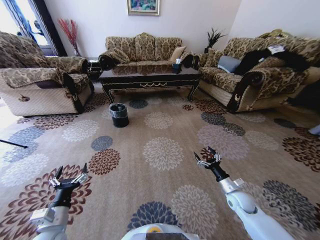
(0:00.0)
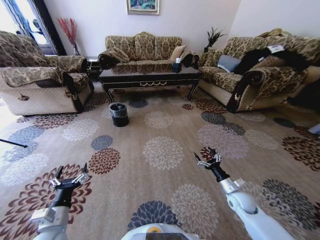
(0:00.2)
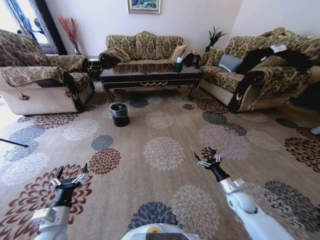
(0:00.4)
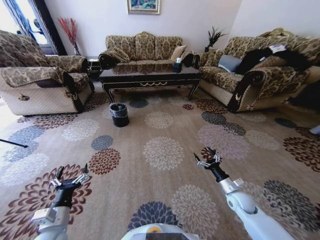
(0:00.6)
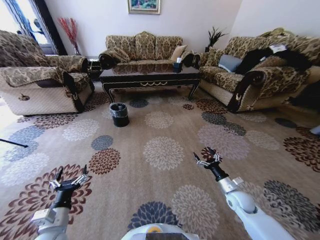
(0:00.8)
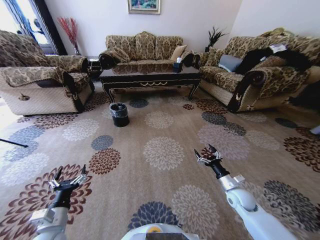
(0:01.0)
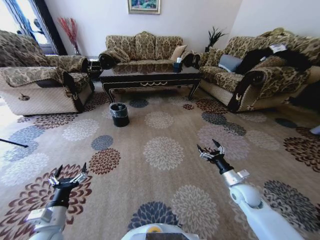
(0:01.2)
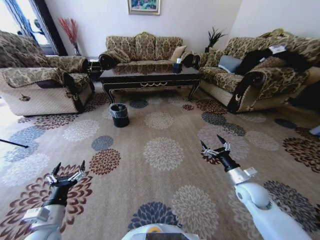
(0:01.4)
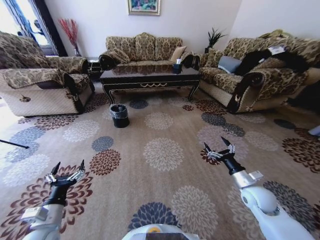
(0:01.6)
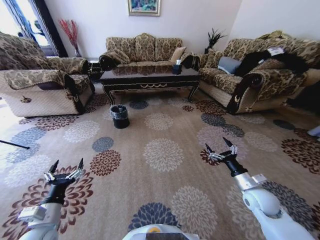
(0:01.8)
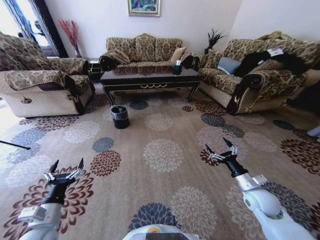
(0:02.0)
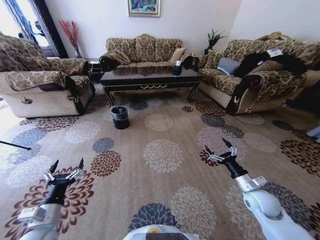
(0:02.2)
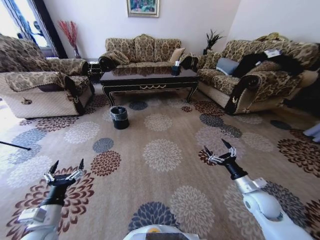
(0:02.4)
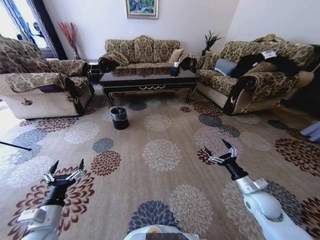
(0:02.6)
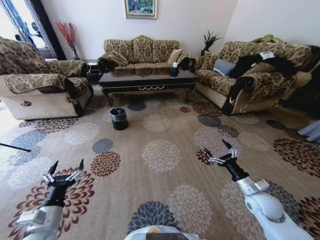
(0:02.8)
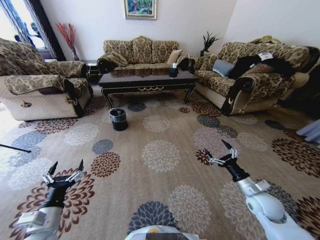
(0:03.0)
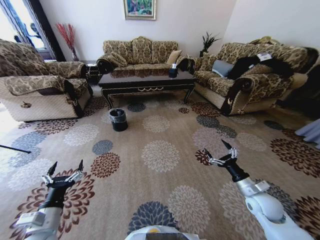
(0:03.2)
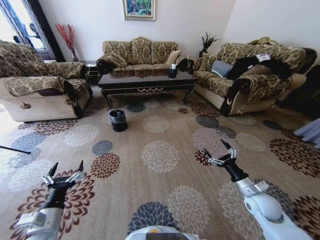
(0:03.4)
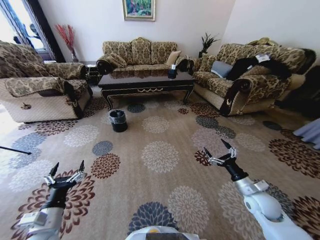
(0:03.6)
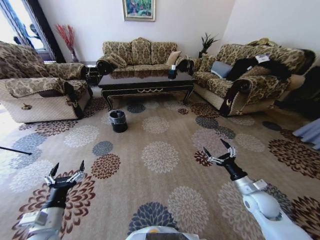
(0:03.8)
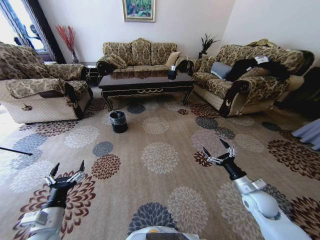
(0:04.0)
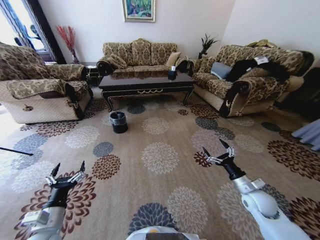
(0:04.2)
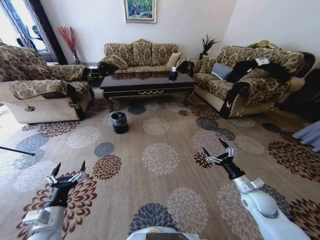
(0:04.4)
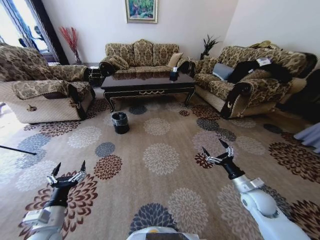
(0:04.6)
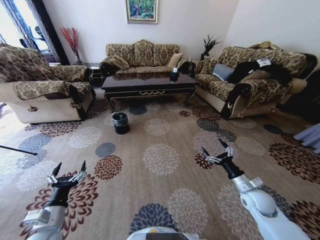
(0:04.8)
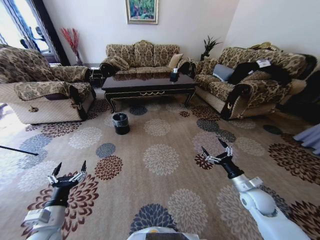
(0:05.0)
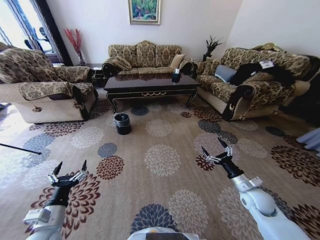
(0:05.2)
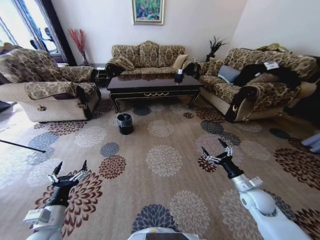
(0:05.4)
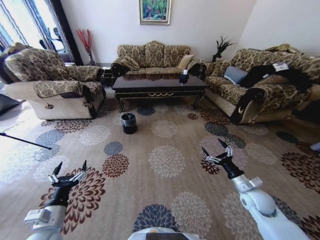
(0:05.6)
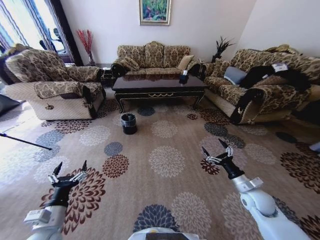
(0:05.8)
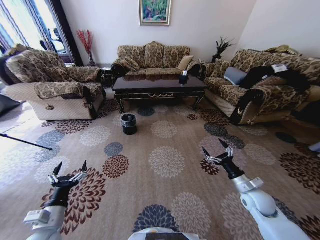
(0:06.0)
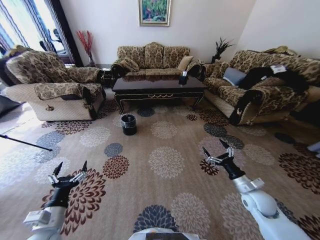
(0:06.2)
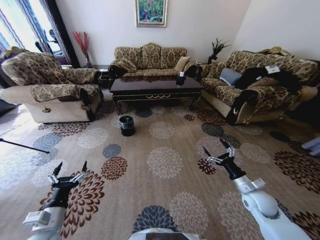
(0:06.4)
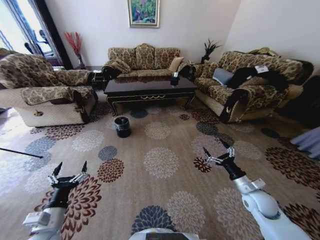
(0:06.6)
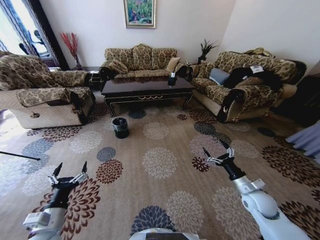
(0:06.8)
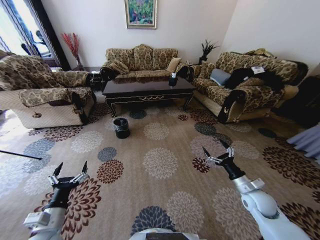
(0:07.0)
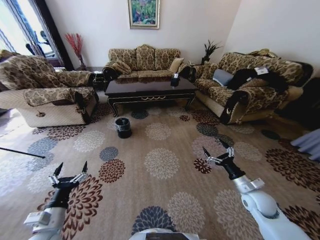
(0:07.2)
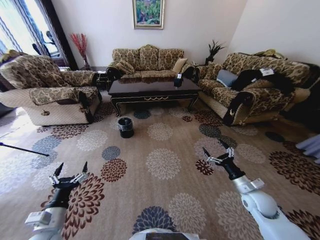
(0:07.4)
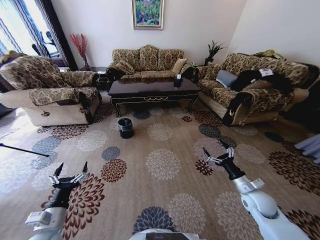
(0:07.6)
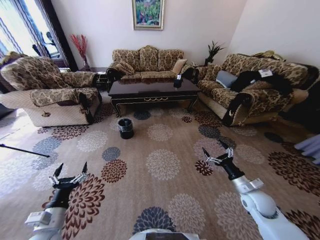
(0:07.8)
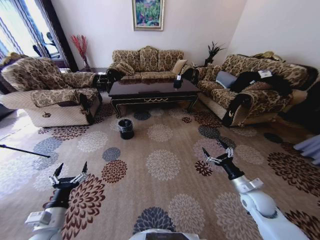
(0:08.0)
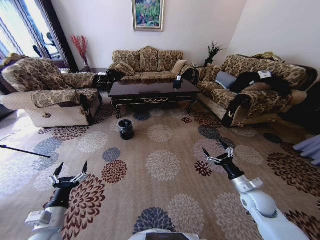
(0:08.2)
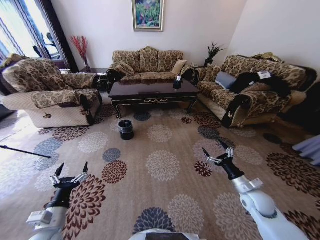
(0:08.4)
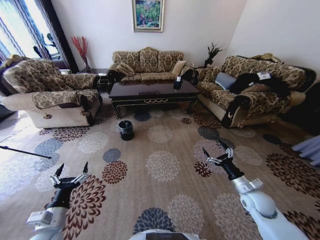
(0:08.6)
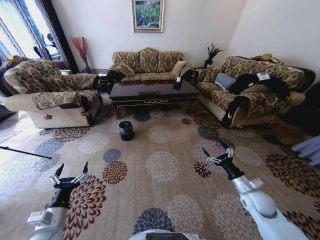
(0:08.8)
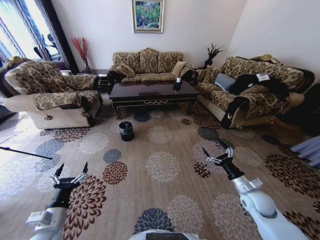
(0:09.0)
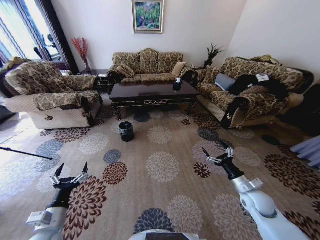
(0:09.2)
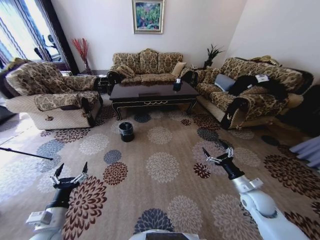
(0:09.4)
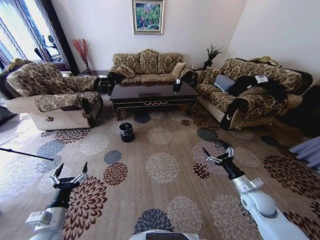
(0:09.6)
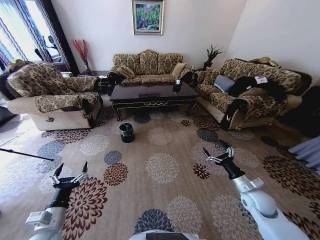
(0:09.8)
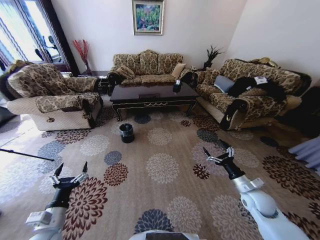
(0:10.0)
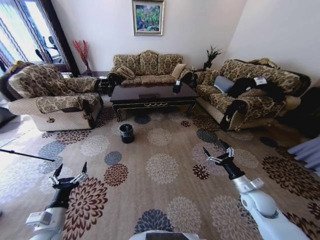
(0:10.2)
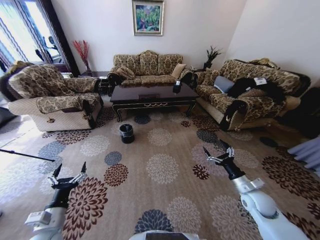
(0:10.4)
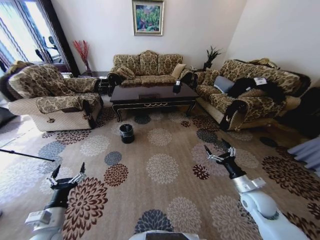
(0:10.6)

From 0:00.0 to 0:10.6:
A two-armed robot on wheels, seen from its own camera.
Task of the whole recording: Move to the front of the table and pick up the trash from the floor, then place it into the trash bin.
From 0:00.0 to 0:01.6: The right gripper heads upward, covering roughly 10 cm.
From 0:09.0 to 0:10.6: Both grippers stay put.
